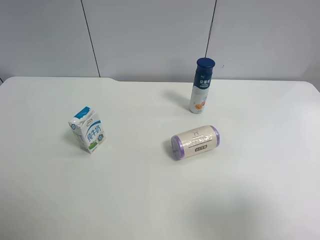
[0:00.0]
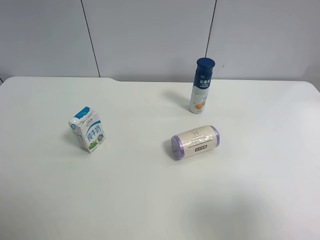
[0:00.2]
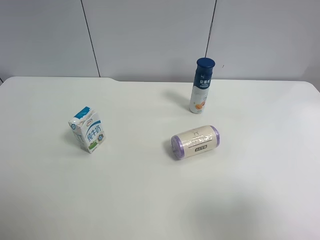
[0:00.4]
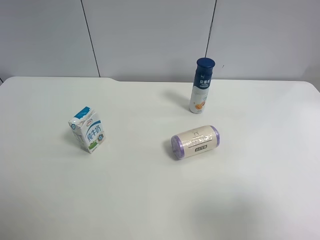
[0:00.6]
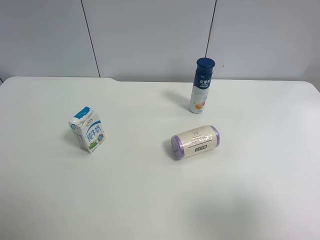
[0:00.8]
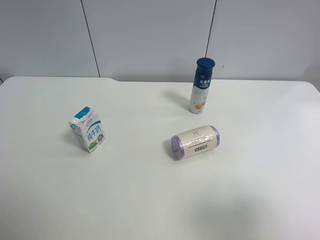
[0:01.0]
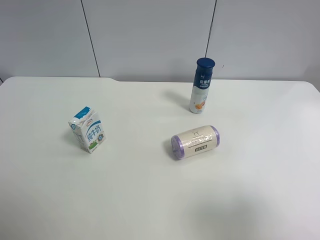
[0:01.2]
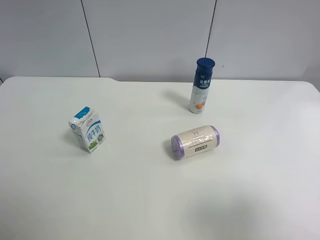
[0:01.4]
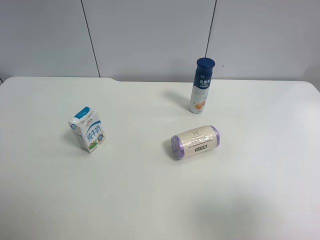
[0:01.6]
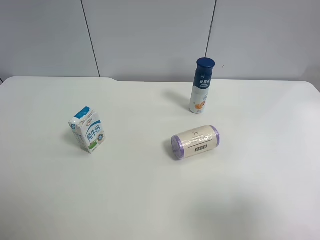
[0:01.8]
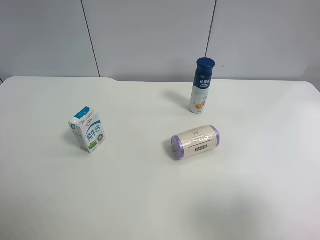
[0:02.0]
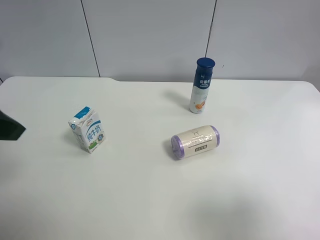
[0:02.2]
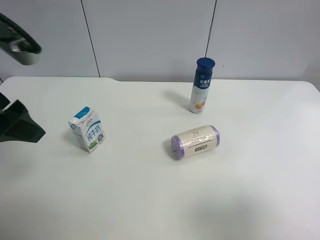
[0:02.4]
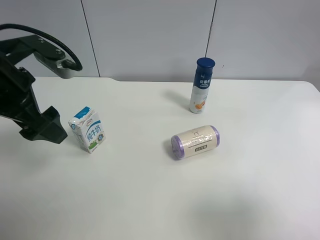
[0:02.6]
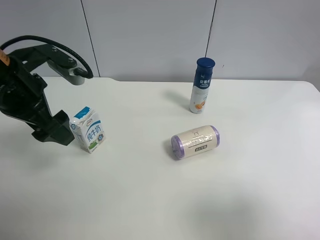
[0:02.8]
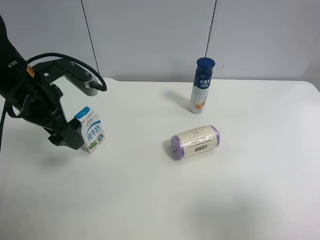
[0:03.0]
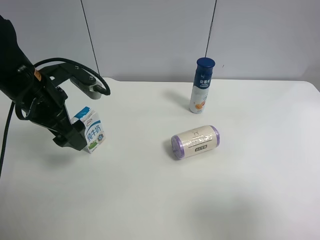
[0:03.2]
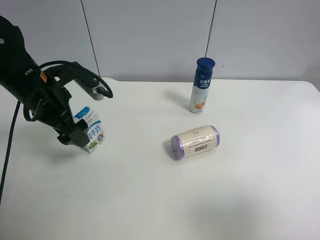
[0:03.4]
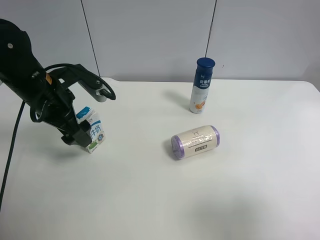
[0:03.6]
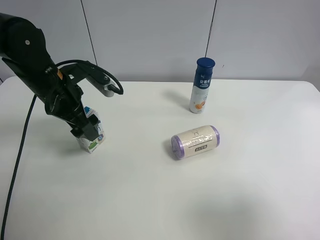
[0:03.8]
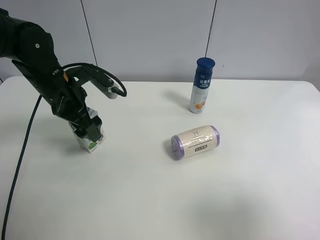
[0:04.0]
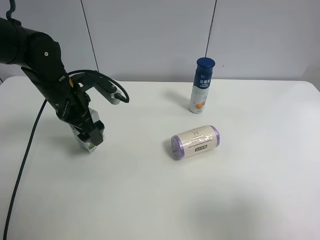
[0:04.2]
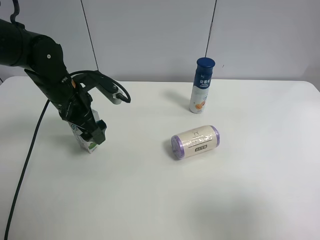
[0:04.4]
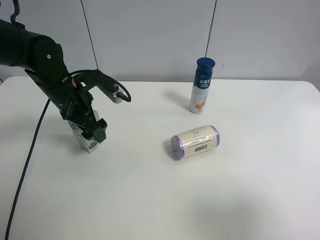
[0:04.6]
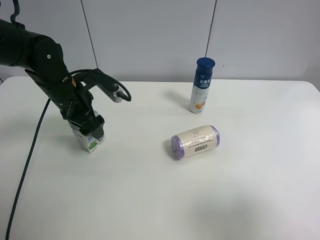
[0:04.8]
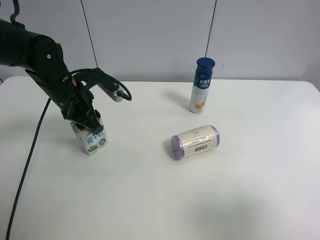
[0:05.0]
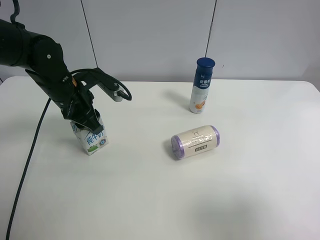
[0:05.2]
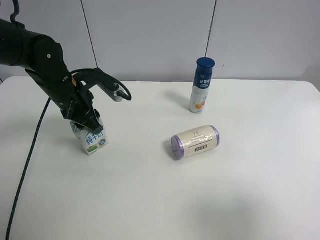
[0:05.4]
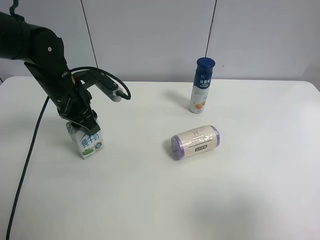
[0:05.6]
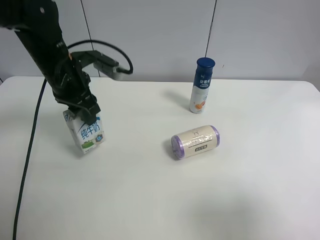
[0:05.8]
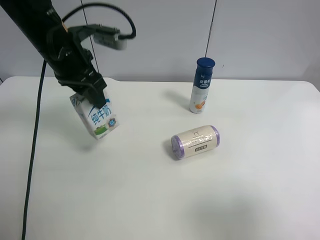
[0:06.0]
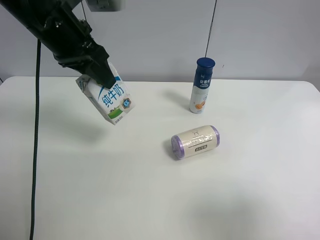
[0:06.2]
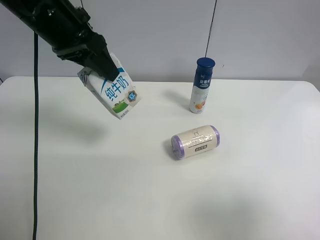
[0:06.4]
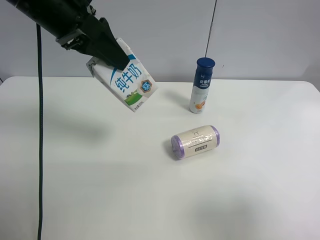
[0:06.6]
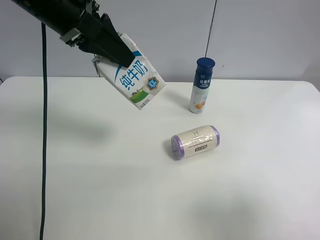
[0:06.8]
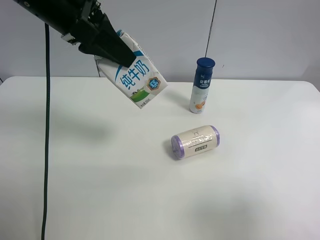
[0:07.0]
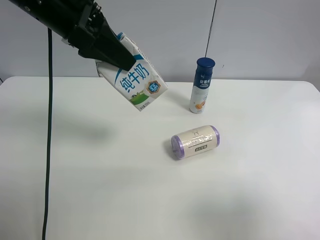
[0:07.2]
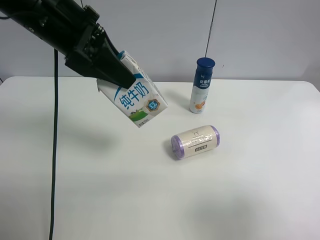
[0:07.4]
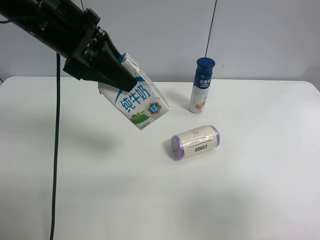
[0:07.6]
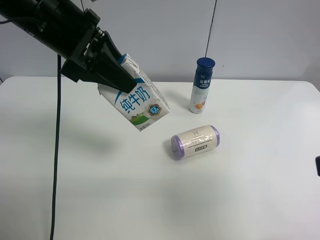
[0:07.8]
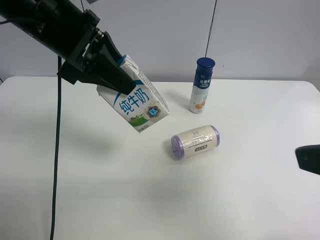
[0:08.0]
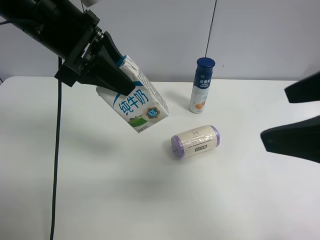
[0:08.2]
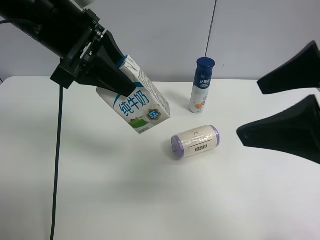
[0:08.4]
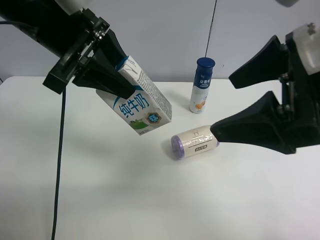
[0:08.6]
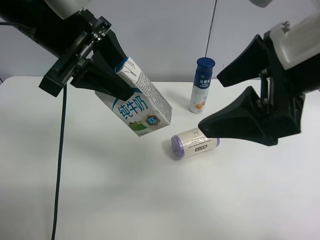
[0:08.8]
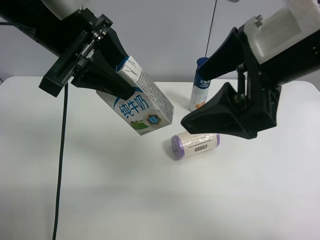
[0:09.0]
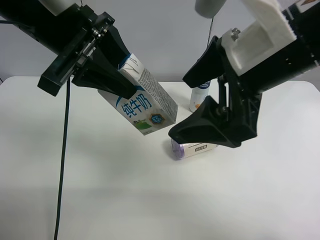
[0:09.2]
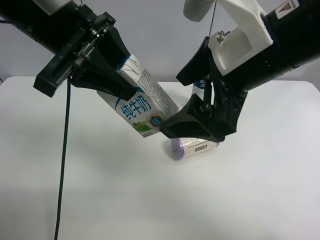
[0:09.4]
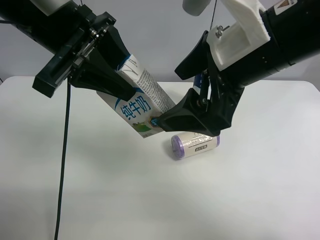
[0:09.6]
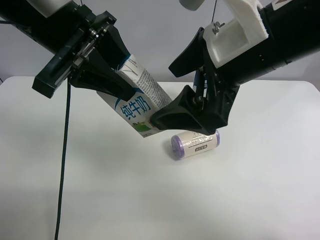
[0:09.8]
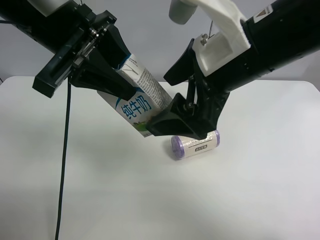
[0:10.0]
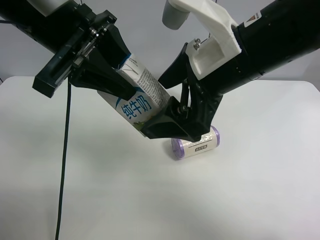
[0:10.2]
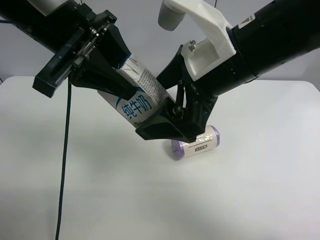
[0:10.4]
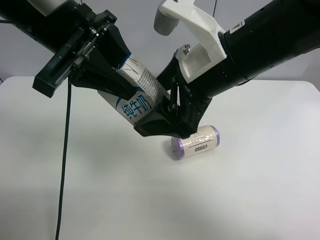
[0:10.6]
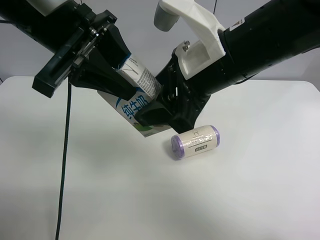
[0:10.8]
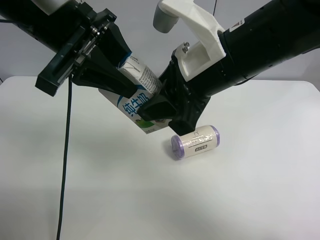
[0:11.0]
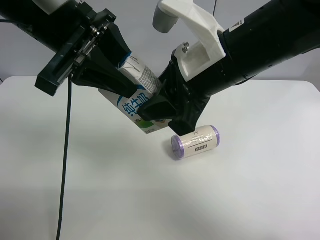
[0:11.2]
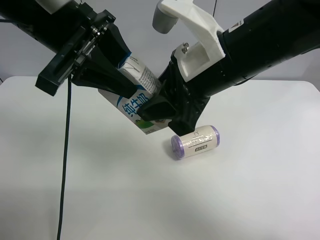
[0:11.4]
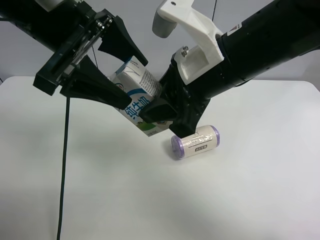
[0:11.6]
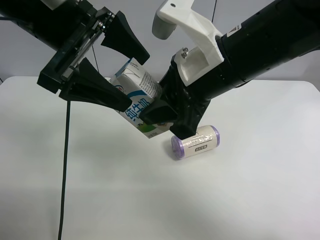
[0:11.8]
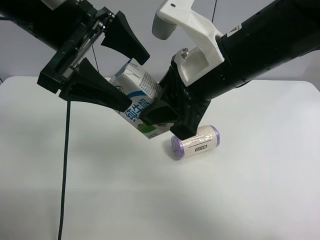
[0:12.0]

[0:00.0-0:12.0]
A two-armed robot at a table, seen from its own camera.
Task of the whole recording: use the left gripper to pick up the item and transfer it from the left gripper to the right gripper.
0:01.6 to 0:03.0: The left gripper travels forward and to the right by about 25 cm.
0:03.0 to 0:04.4: The left gripper is displaced forward and downward by roughly 10 cm.
0:04.4 to 0:06.0: The left gripper travels upward by some 10 cm, and closes.
0:06.0 to 0:07.6: The left gripper moves roughly 5 cm.
0:07.6 to 0:09.0: The right gripper is displaced forward and to the left by some 20 cm.
0:09.0 to 0:10.4: The right gripper moves about 5 cm.
0:10.4 to 0:12.0: The right gripper closes. The left gripper opens its fingers.

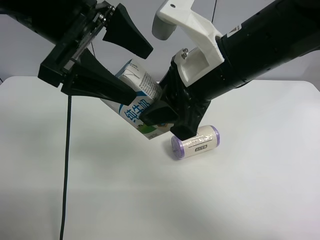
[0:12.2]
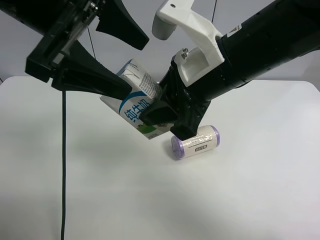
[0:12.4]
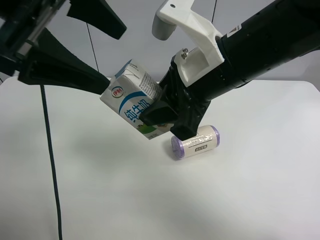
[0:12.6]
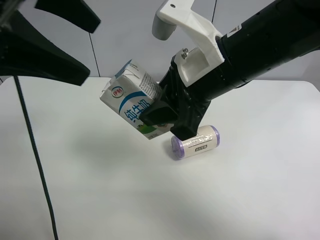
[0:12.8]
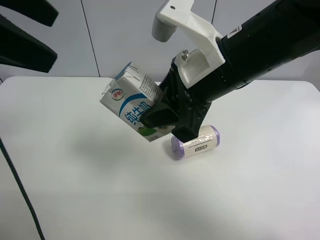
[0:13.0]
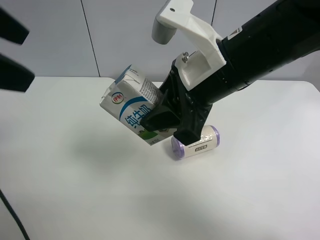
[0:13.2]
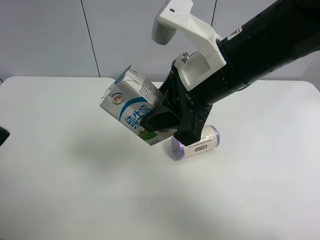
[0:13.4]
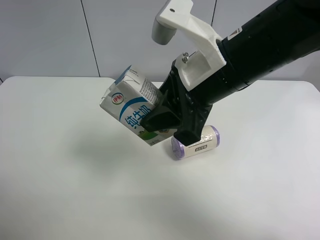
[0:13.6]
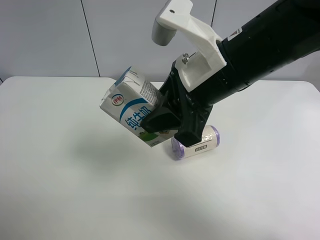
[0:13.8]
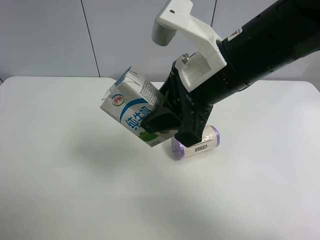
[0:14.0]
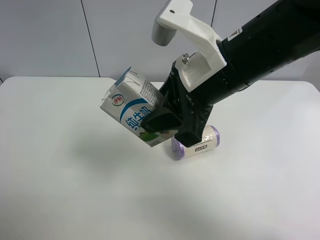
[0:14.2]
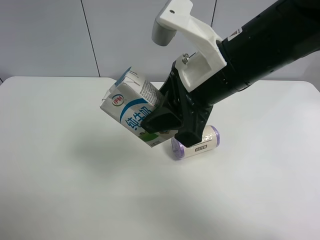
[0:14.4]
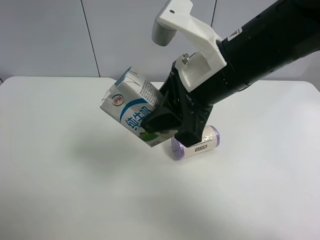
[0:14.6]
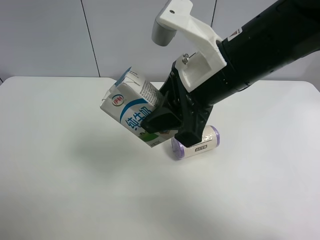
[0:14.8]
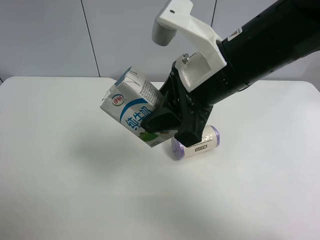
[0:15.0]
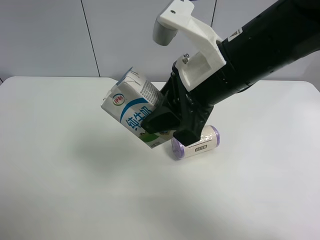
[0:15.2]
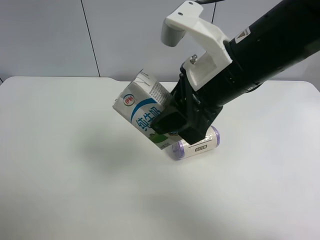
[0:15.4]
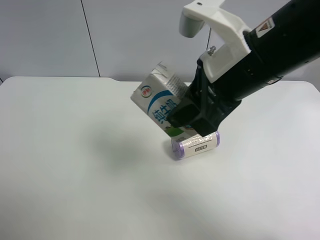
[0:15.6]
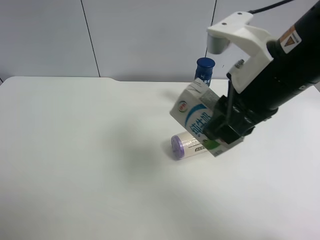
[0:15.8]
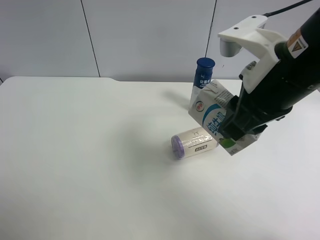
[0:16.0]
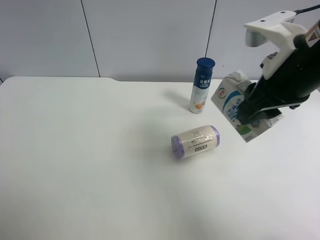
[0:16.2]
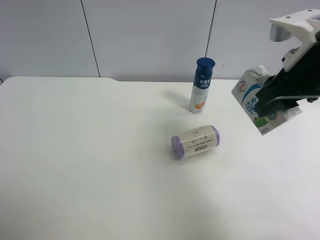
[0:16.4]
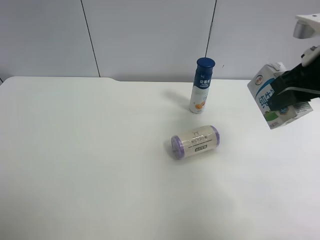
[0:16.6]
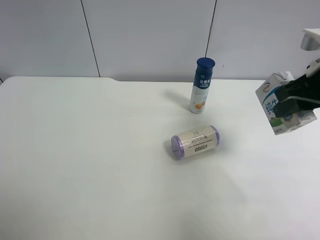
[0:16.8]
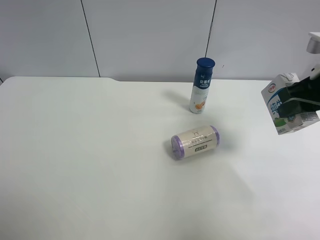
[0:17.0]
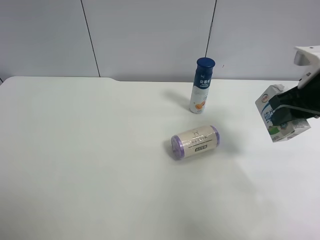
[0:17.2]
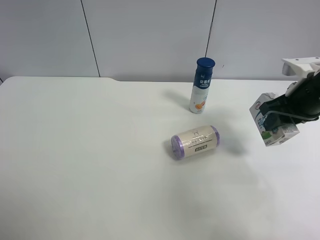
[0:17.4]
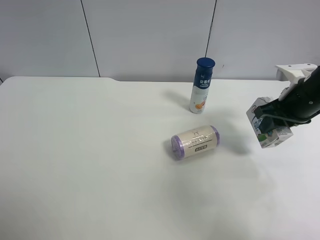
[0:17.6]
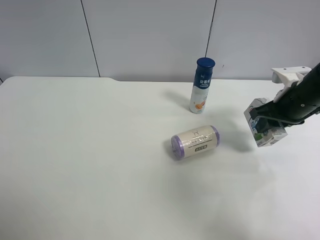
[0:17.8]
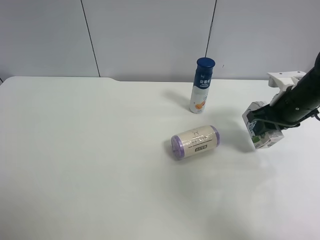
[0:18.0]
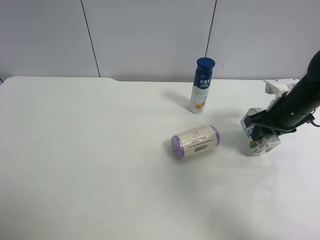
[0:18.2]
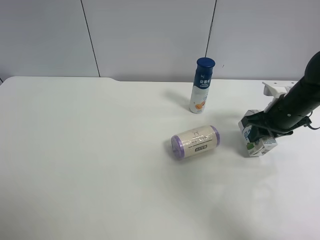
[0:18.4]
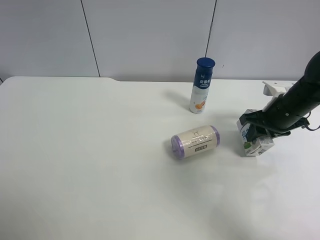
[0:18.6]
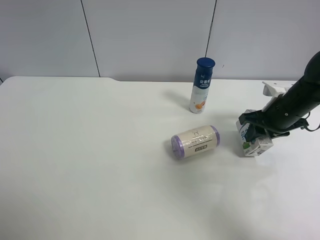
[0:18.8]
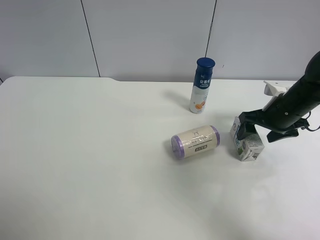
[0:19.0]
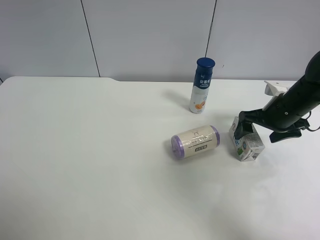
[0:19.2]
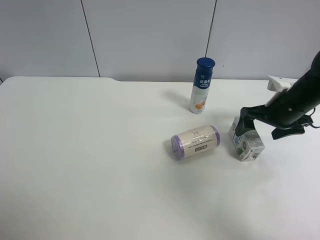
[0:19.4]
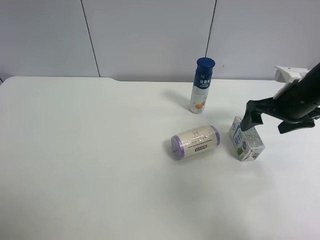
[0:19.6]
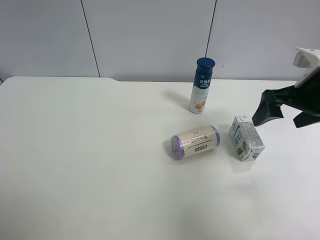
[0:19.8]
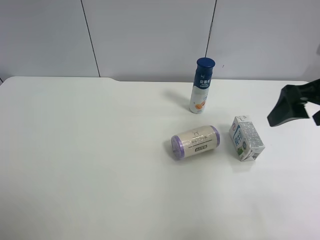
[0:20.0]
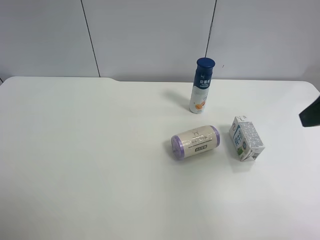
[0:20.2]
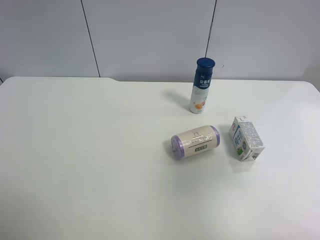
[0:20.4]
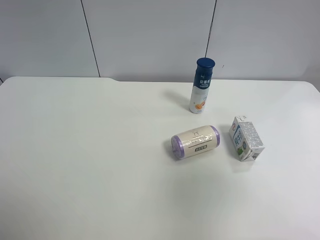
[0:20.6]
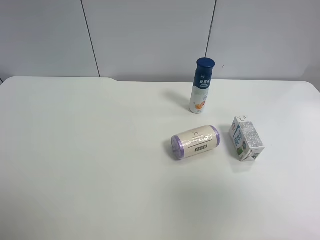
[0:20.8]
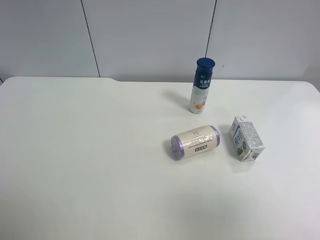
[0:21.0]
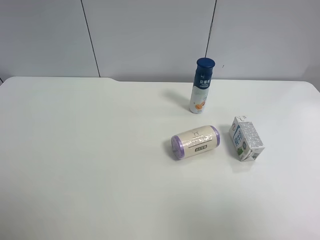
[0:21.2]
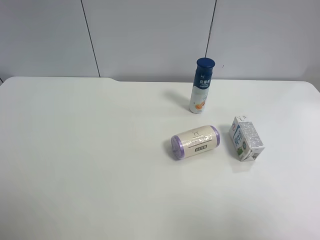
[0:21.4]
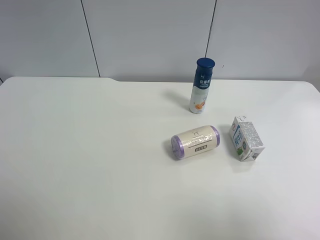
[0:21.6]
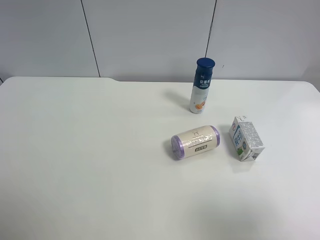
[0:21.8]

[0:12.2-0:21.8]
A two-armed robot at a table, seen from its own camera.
Task of the whole recording: use the left gripper to pick up the item and transfer it from the left gripper to the right gripper.
0:12.2 to 0:13.8: The left gripper shifts about 25 cm backward and to the left.
0:13.8 to 0:15.4: The left gripper shifts by approximately 5 cm.
0:15.4 to 0:17.0: The right gripper is displaced to the right by roughly 20 cm.
0:17.0 to 0:18.6: The right gripper shifts about 15 cm downward and forward.
0:18.6 to 0:20.2: The right gripper travels upward and backward by about 25 cm, and opens its fingers.
0:20.2 to 0:21.8: The right gripper heads backward, covering about 15 cm.

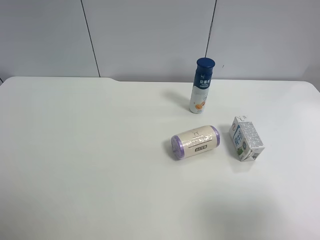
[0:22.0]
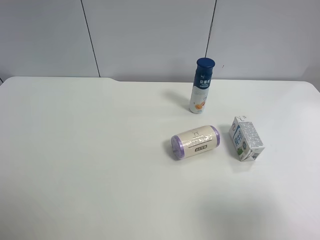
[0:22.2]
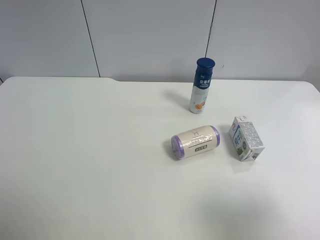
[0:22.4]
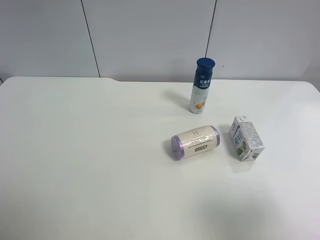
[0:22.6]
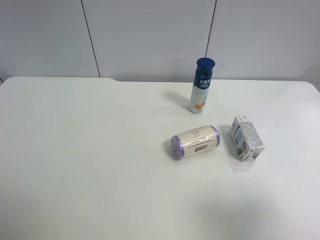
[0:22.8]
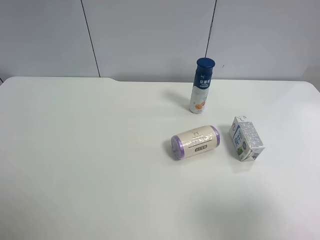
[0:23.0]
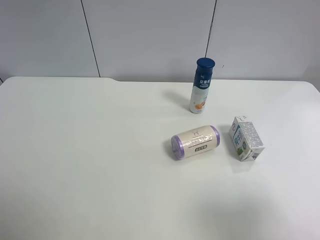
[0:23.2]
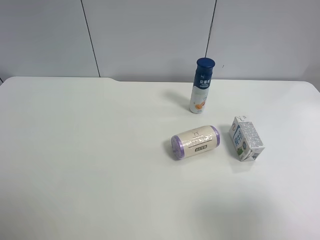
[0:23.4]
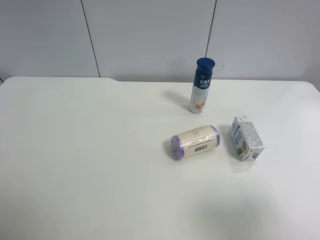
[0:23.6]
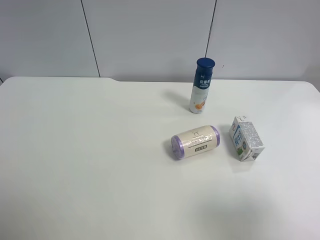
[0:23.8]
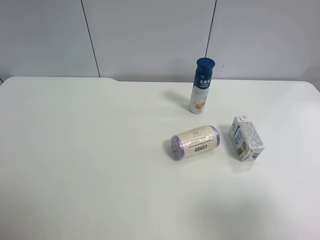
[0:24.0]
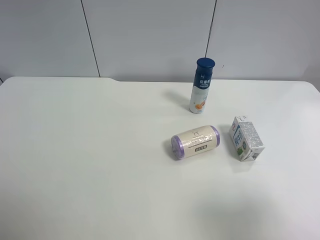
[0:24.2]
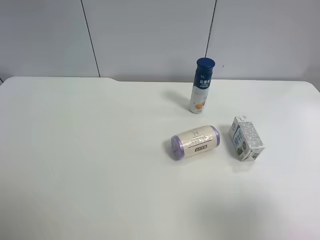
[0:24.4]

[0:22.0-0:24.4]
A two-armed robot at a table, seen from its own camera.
Task of the whole recording: use the left gripper to pick up the item and transfer it from the left gripper to the right gripper.
0:23.2 to 0:24.4: The two grippers keep their place.
